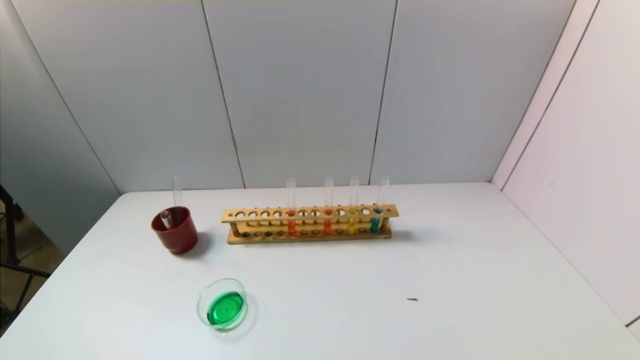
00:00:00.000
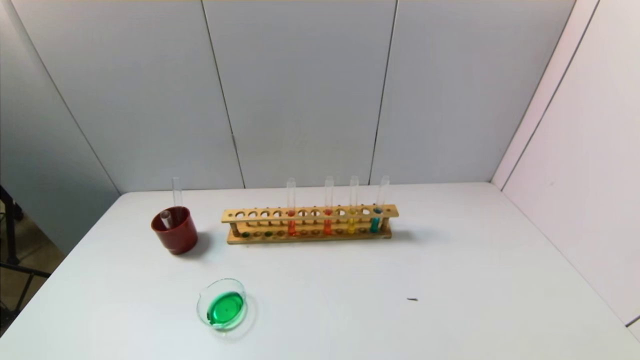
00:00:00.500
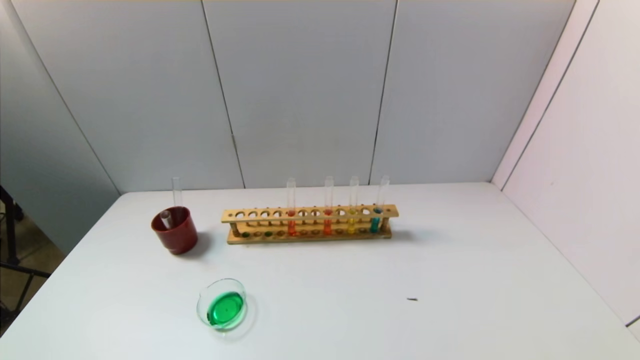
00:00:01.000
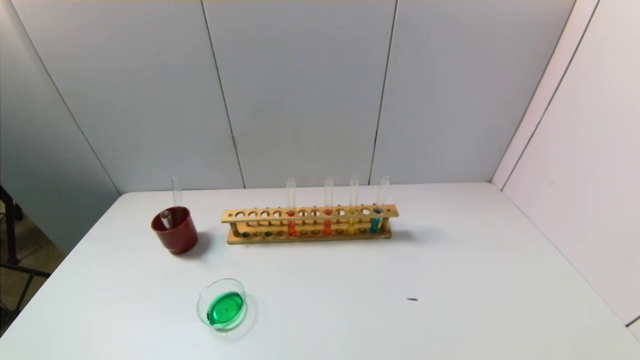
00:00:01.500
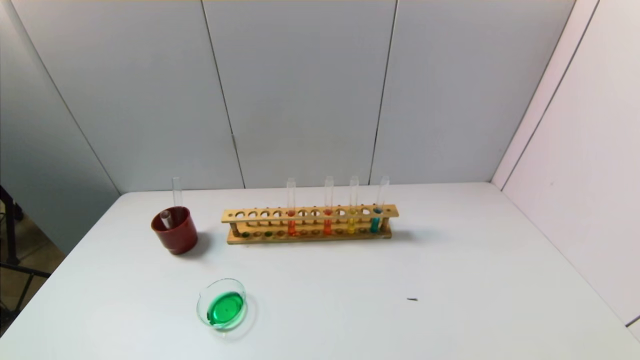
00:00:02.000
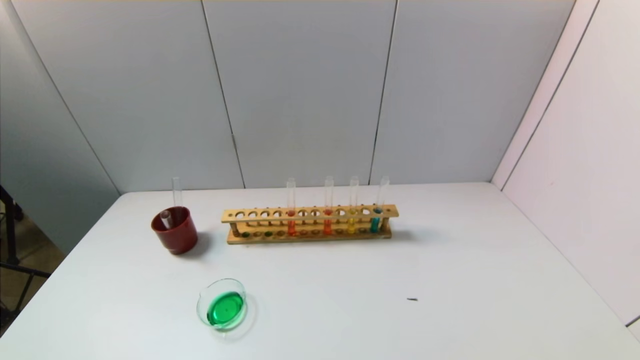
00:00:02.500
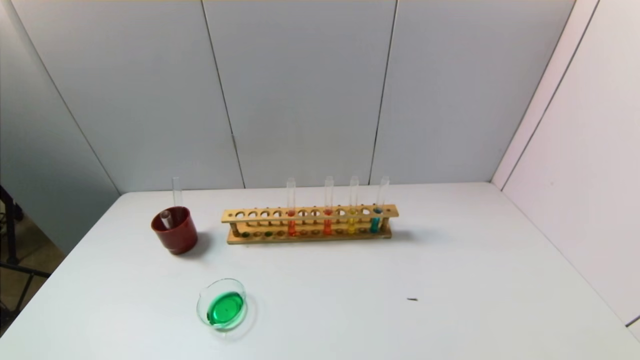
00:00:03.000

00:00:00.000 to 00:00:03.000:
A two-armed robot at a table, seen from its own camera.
Task of the whole recording: pick up the test tube with yellow pigment and the test tube with blue pigment by grippers and pour them into the beaker.
00:00:01.500 to 00:00:03.000: The two grippers keep their place.
